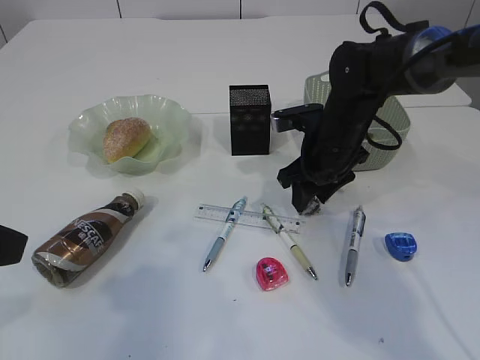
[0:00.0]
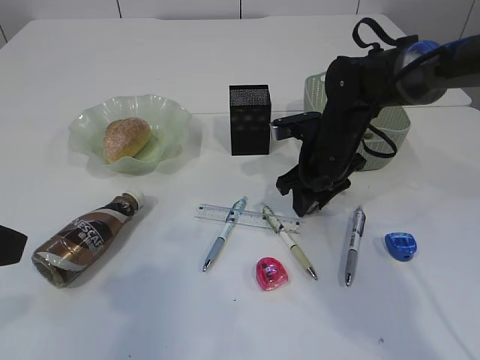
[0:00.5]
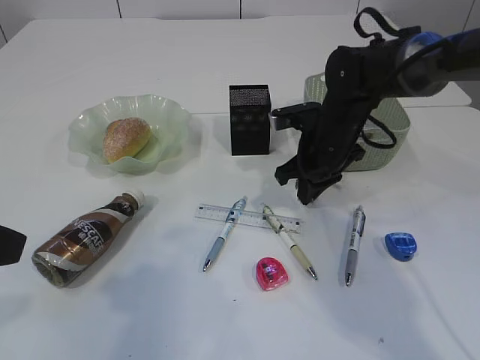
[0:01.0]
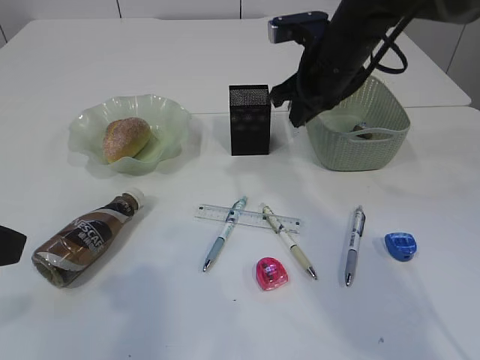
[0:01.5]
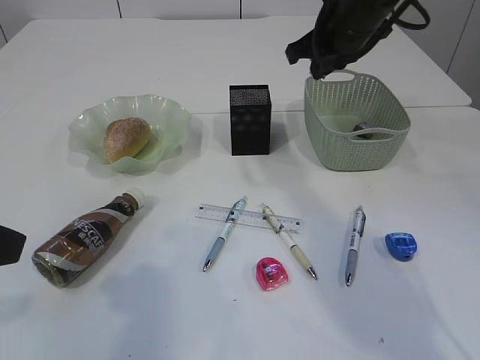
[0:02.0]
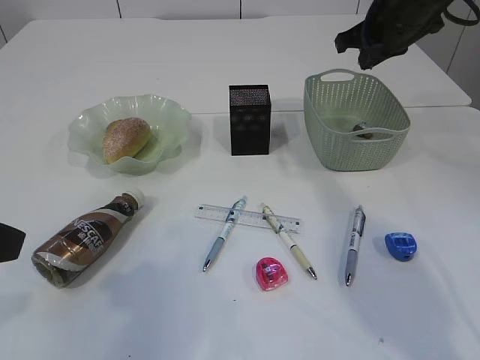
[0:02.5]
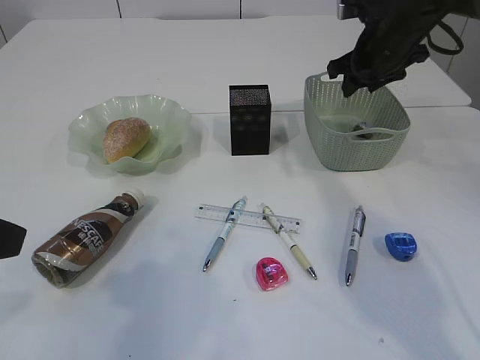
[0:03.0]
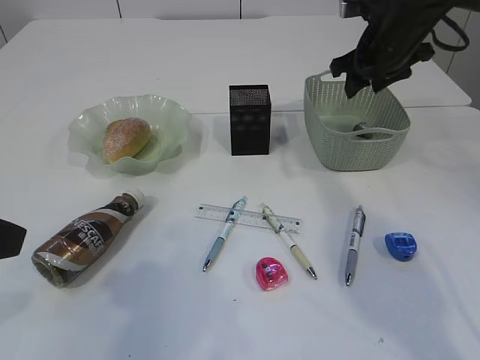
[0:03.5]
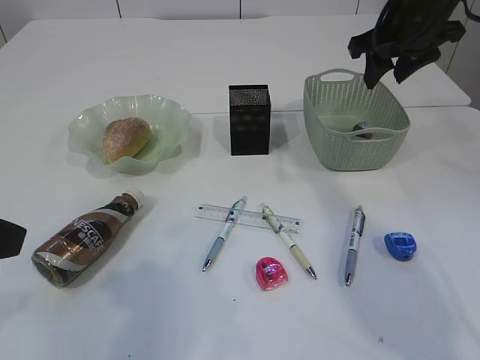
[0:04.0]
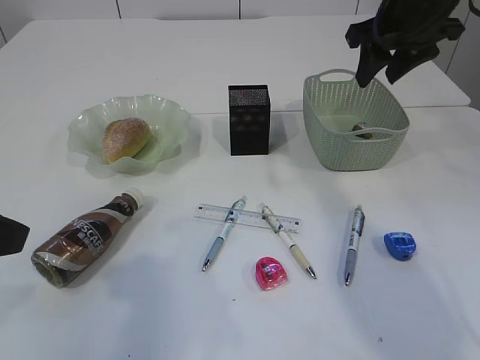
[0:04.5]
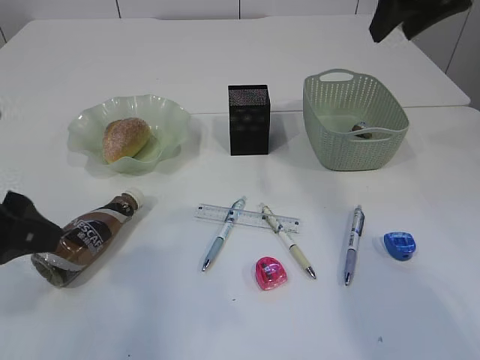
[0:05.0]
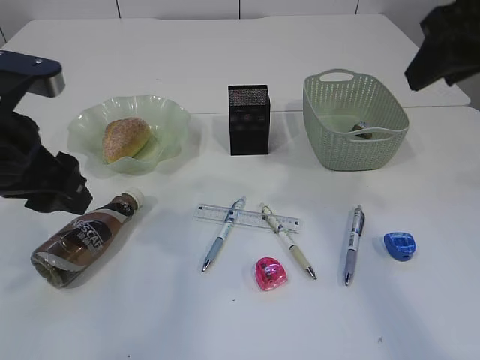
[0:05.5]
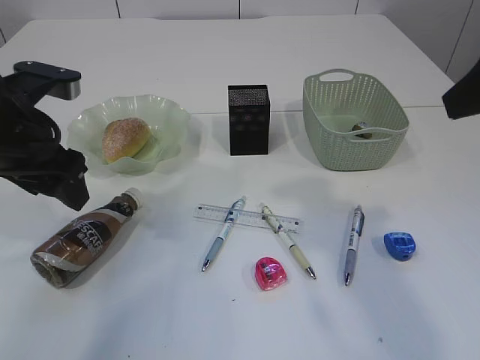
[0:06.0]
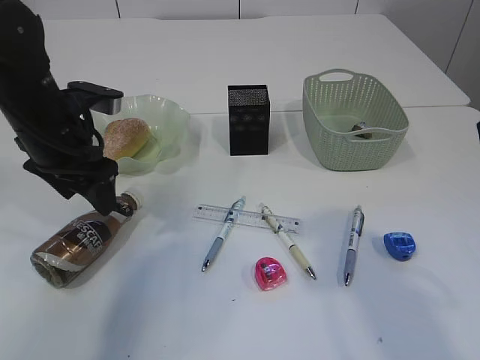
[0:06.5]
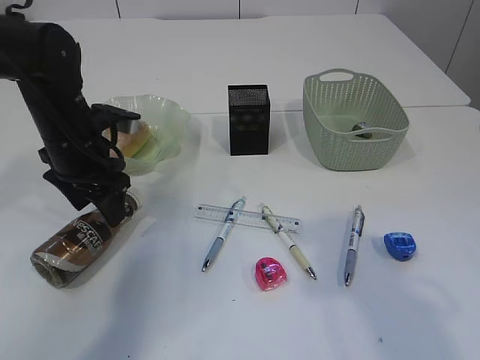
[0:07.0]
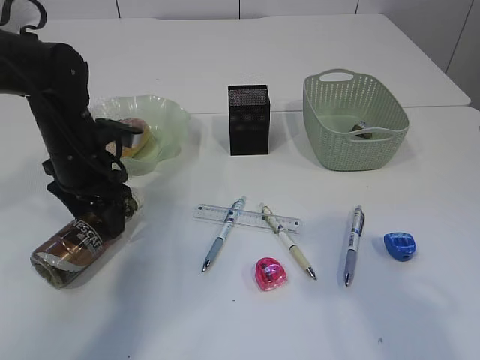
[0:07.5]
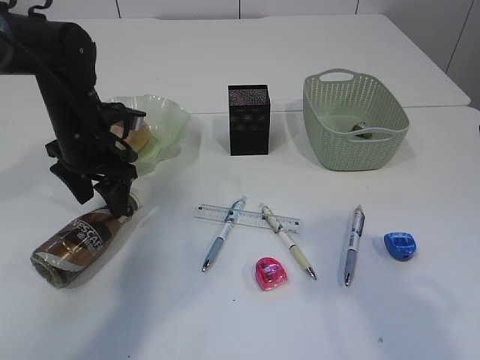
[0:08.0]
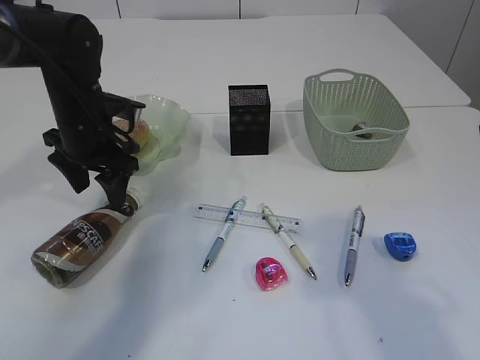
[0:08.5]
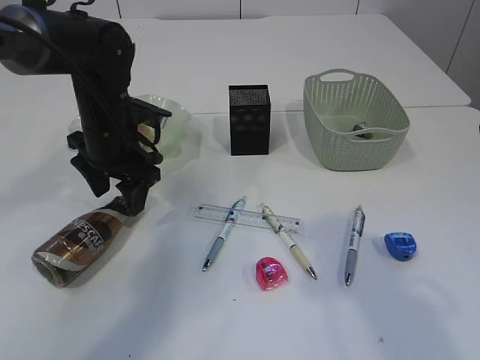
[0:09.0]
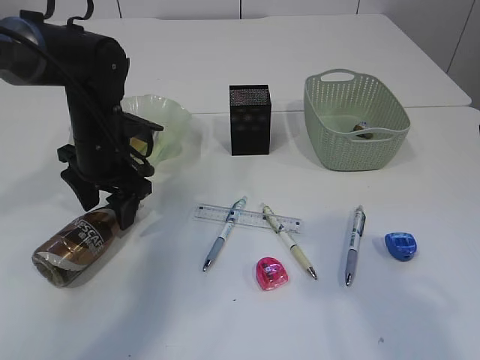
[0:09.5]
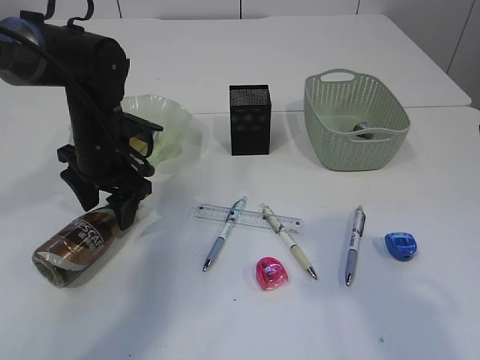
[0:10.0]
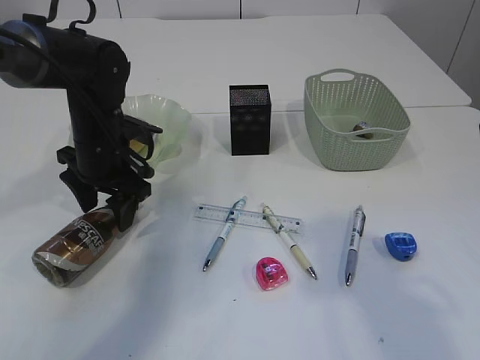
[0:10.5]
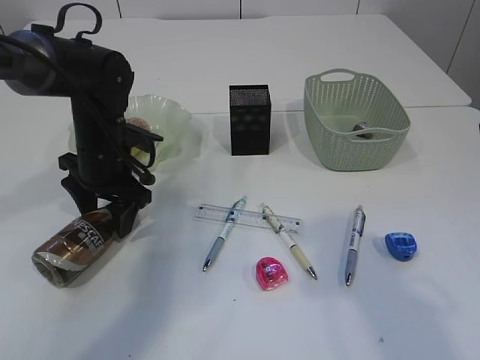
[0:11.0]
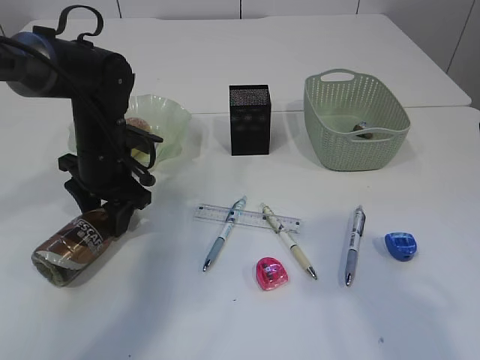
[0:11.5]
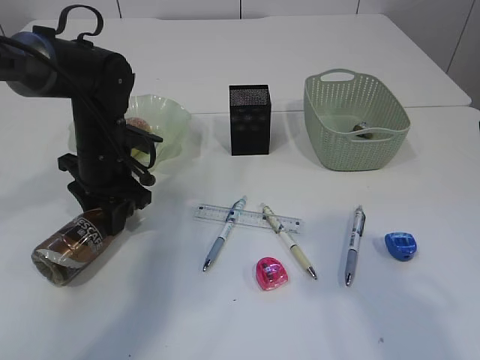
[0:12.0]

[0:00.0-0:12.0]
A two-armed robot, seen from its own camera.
Step, 0:01.5 to 0:04.0: Place the waste paper in the basket.
0:00.0 to 0:02.0: The right gripper moves upward, roughly 15 cm, and closes its fingers.
0:02.0 to 0:04.0: The right gripper heads to the right, covering roughly 5 cm, and opens up.
0:04.0 to 0:06.0: The right gripper shifts roughly 20 cm backward; the left gripper travels forward by roughly 15 cm.
0:06.0 to 0:08.0: The left gripper shifts roughly 15 cm forward and downward; the right gripper heads backward, covering some 5 cm.
0:08.0 to 0:10.0: The grippers make only small movements.
0:10.0 to 0:12.0: The left gripper closes.

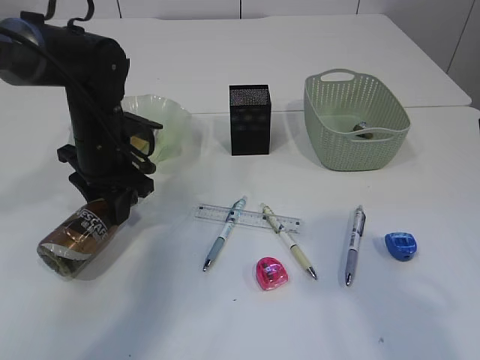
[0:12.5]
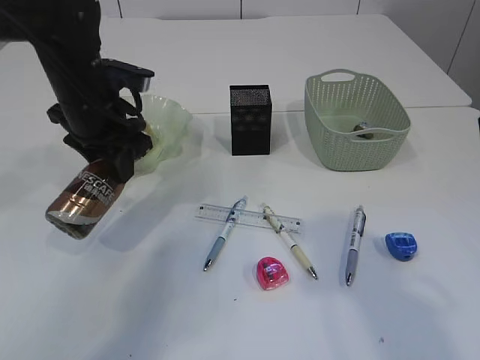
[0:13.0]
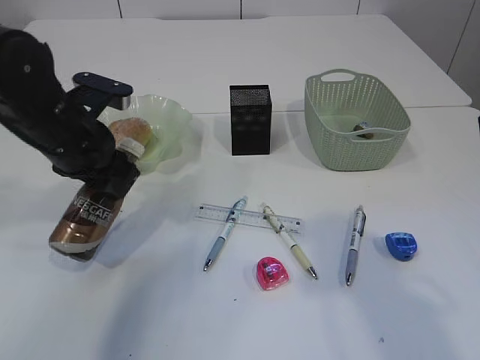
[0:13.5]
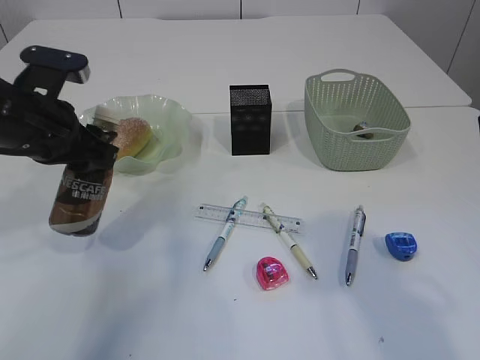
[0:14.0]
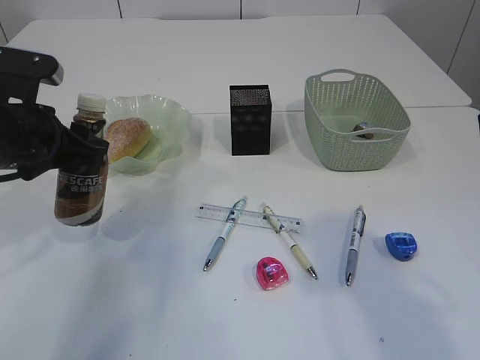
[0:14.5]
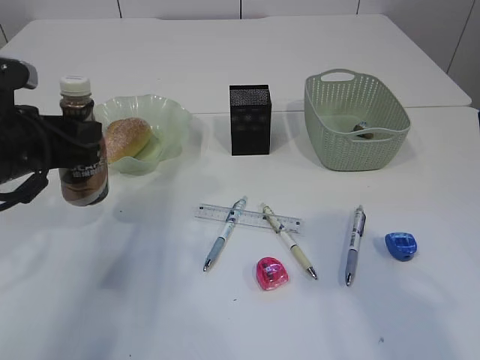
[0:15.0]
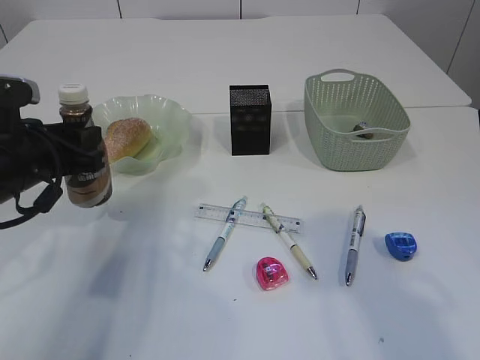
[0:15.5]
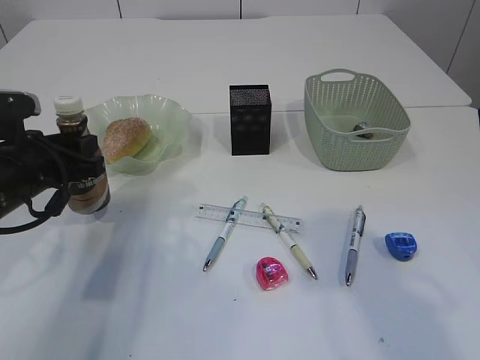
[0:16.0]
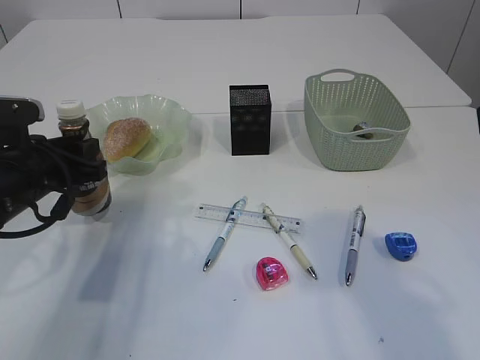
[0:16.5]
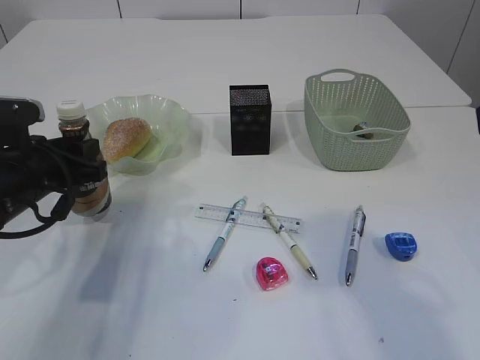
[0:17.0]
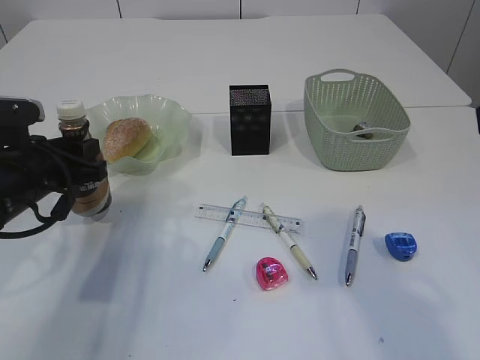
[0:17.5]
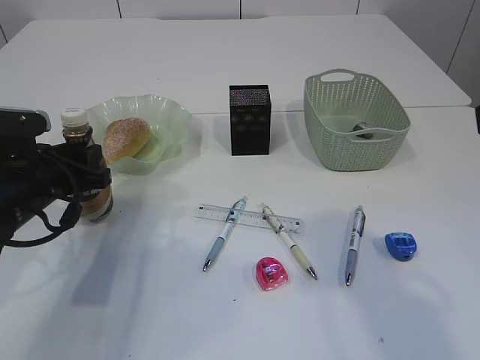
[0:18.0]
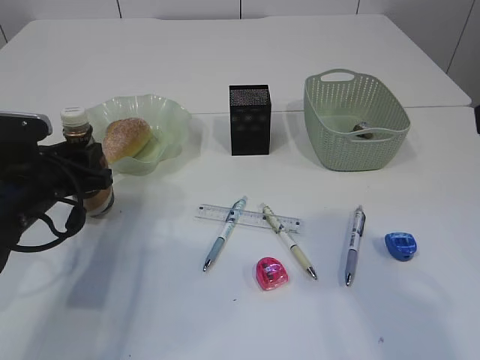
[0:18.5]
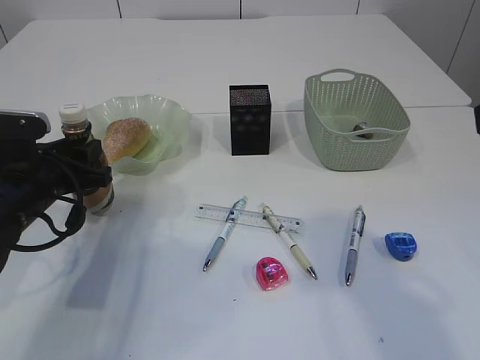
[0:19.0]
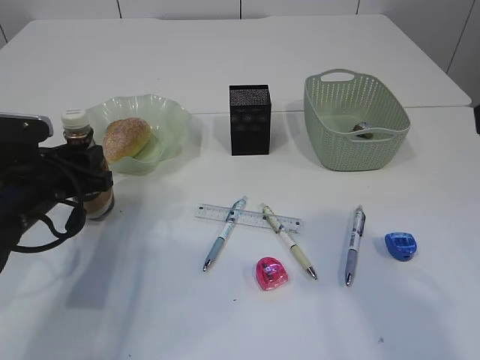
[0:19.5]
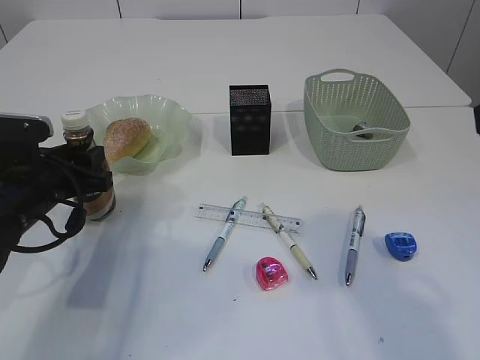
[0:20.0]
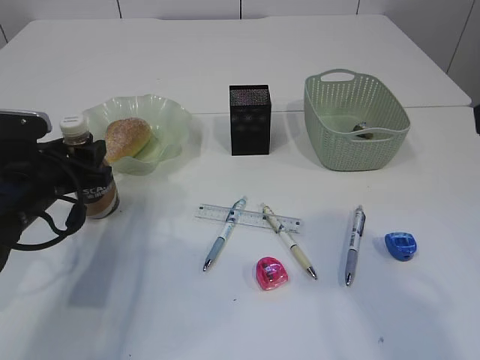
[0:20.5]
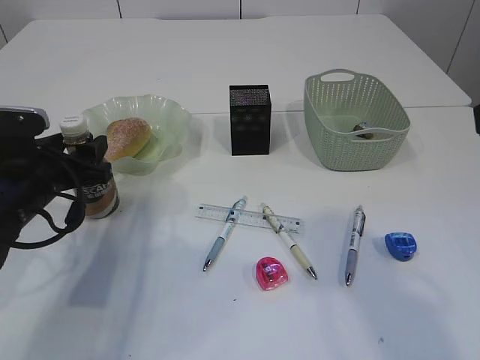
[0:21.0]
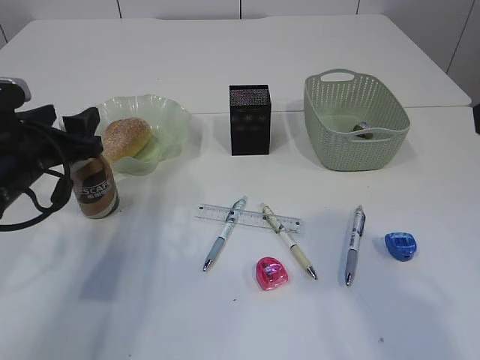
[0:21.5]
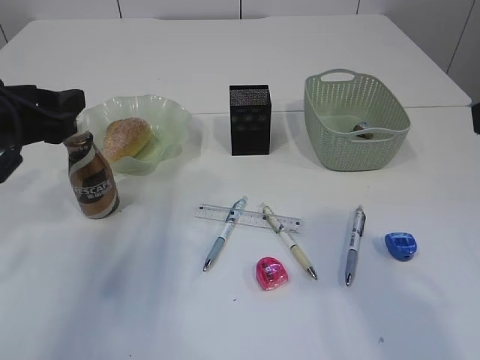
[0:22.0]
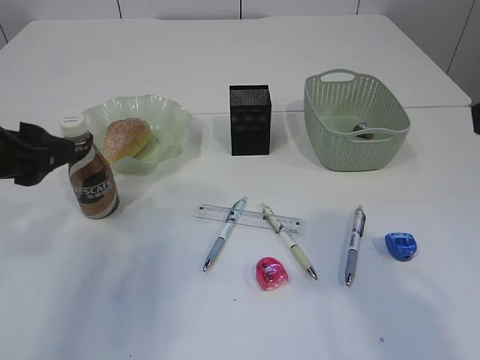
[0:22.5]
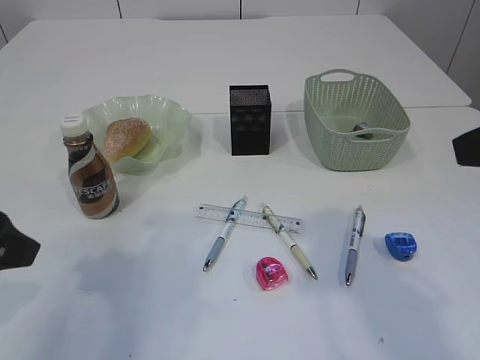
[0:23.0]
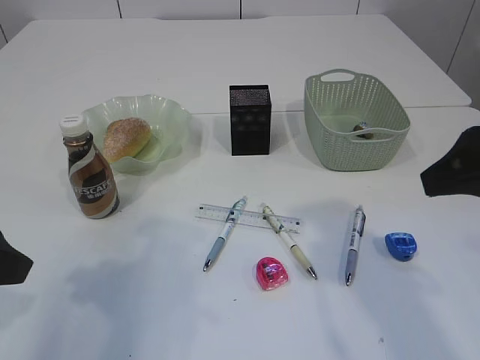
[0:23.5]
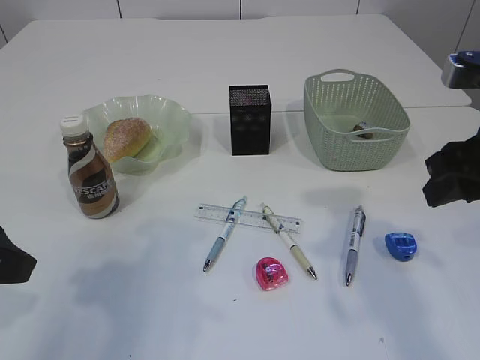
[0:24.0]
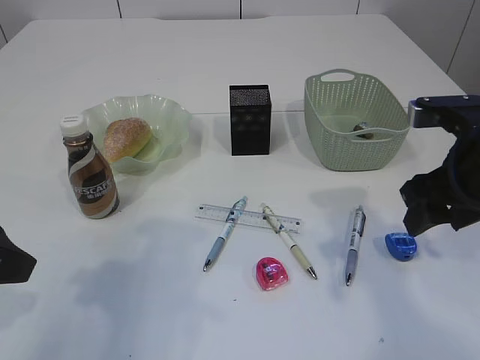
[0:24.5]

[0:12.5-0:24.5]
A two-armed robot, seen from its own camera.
Step, 0:13.5 to 0:22.0: Place the bottle.
0:12.5 to 0:14.5: The left gripper shifts about 10 cm backward, upward and to the left.
0:14.5 to 0:16.5: The left gripper moves downward, approximately 5 cm.
0:16.5 to 0:18.5: The grippers move only a little.
0:18.5 to 0:20.5: The left gripper opens its fingers.
0:20.5 to 0:22.5: The left gripper moves upward and backward, some 15 cm.
0:22.5 to 0:24.5: The right gripper goes roughly 15 cm downward and forward; the left gripper shifts about 5 cm backward.

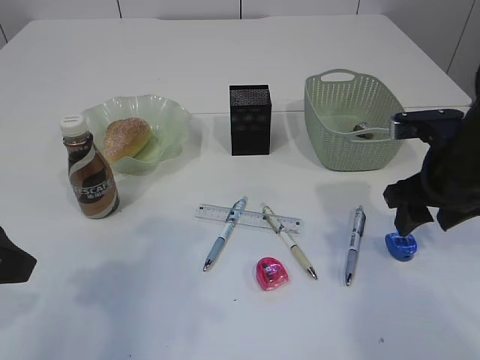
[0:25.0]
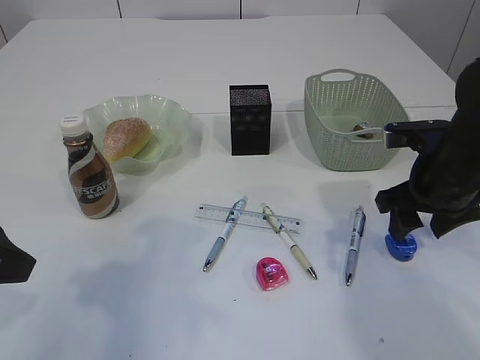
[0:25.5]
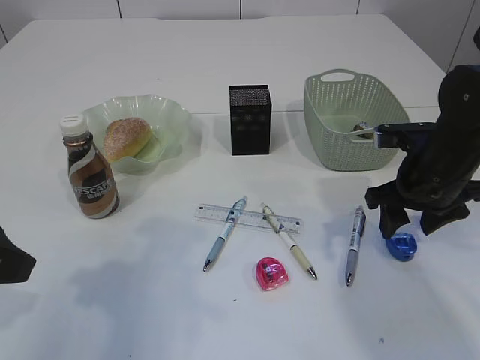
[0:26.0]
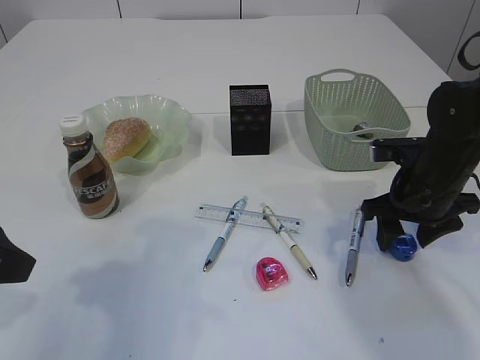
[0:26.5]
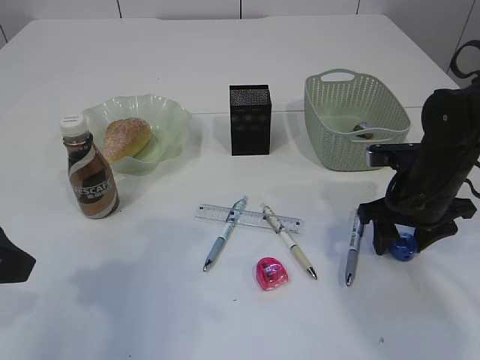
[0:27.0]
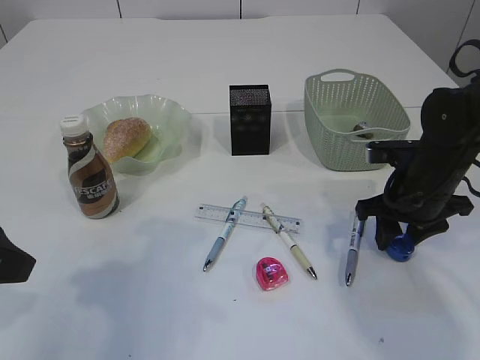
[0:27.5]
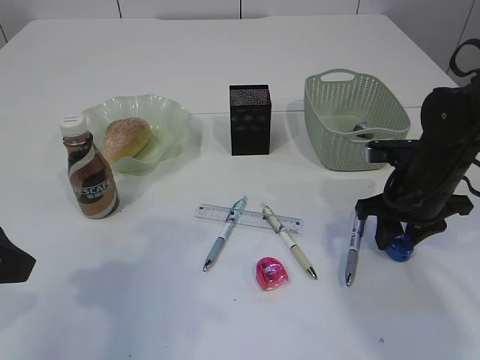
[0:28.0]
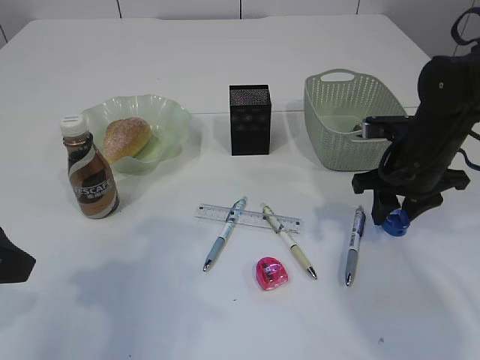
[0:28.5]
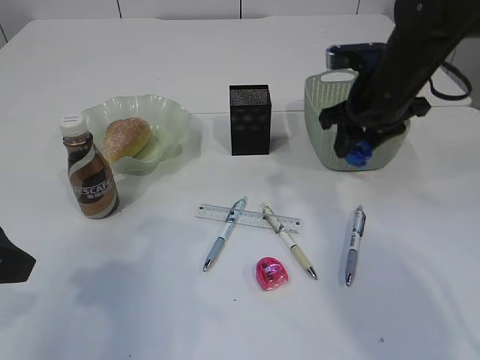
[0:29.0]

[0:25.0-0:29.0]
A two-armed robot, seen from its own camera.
Step, 0:25.0 to 0:28.5: Pick up the blue pencil sharpener.
0:25.0 to 0:27.0: The right gripper is displaced downward by approximately 5 cm.
0:27.0 to 0:29.0: The right gripper travels upward and forward by some 15 cm.
